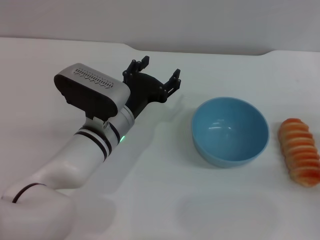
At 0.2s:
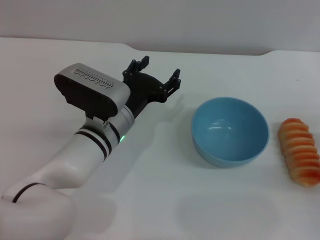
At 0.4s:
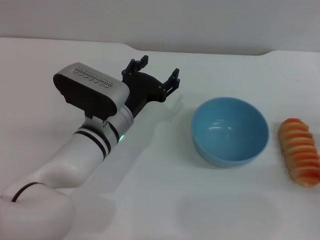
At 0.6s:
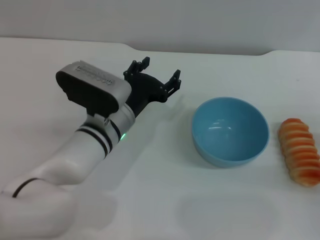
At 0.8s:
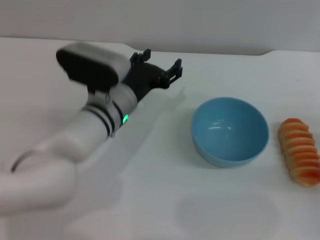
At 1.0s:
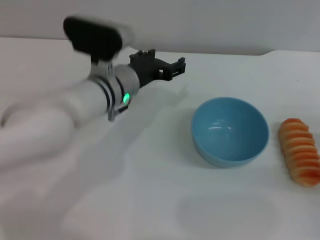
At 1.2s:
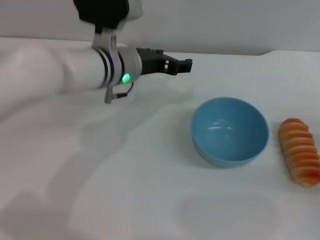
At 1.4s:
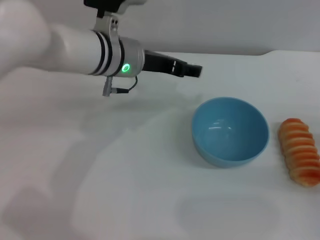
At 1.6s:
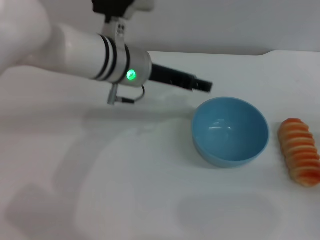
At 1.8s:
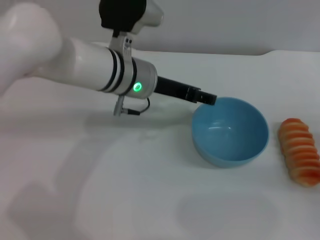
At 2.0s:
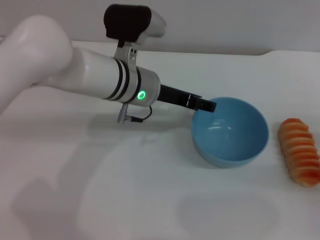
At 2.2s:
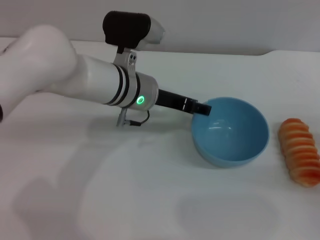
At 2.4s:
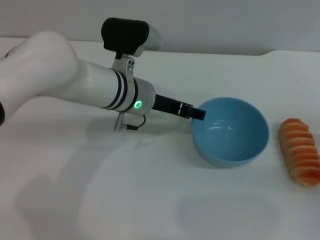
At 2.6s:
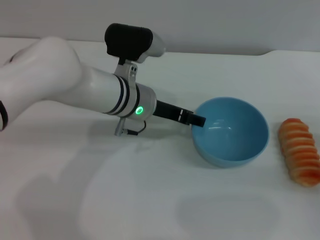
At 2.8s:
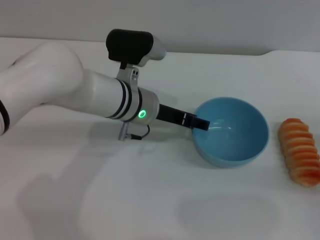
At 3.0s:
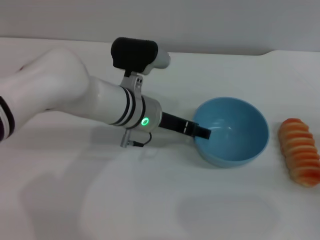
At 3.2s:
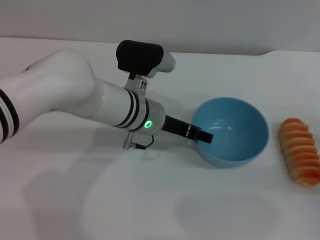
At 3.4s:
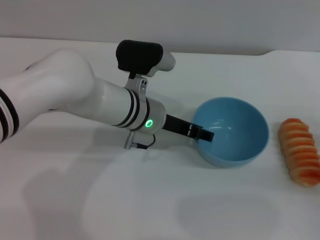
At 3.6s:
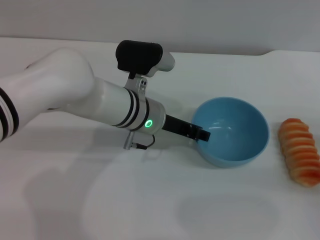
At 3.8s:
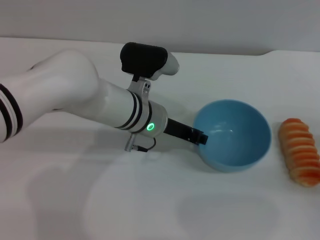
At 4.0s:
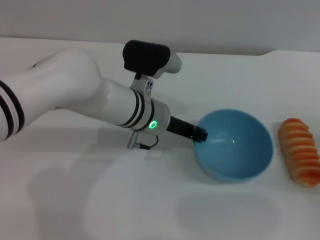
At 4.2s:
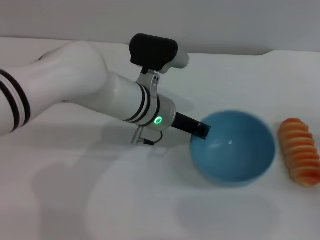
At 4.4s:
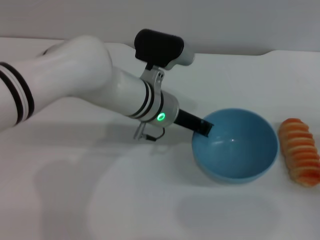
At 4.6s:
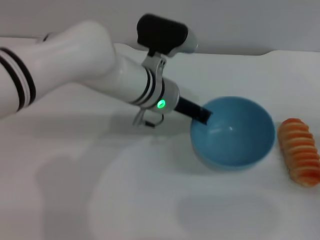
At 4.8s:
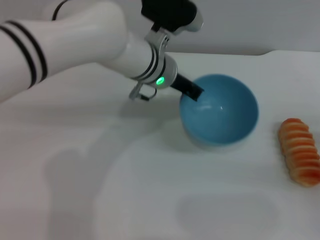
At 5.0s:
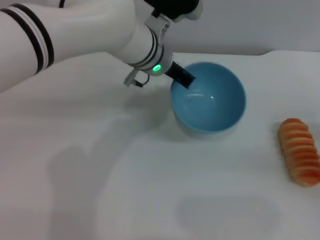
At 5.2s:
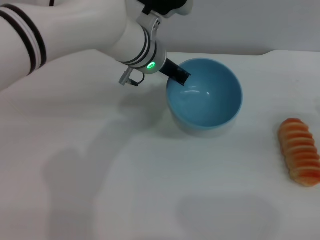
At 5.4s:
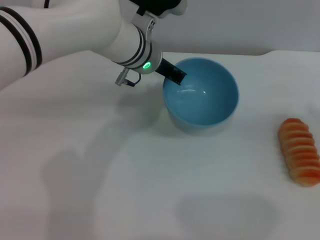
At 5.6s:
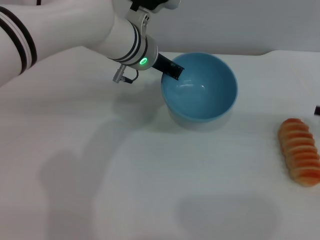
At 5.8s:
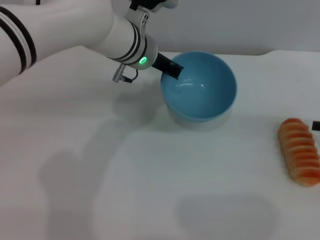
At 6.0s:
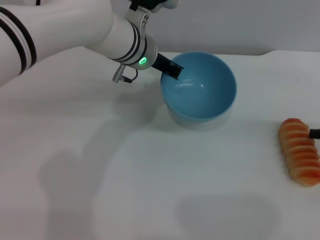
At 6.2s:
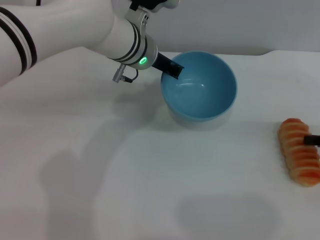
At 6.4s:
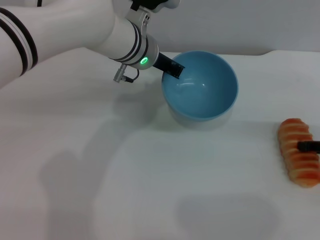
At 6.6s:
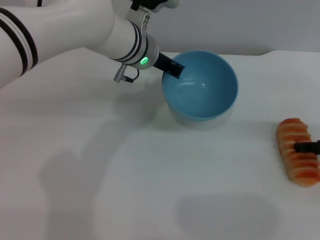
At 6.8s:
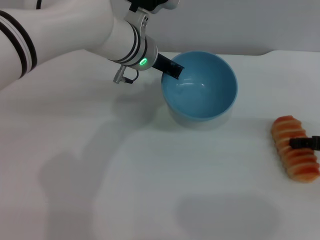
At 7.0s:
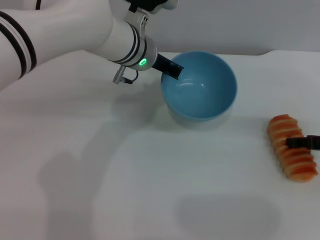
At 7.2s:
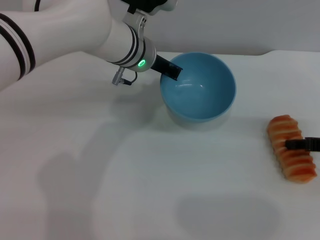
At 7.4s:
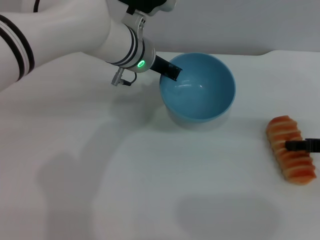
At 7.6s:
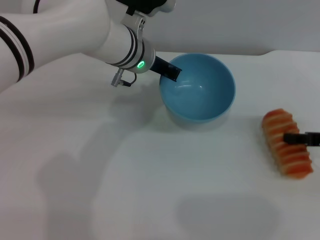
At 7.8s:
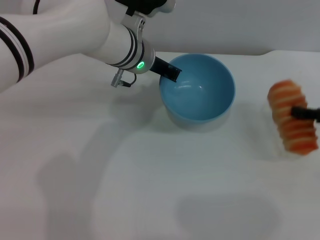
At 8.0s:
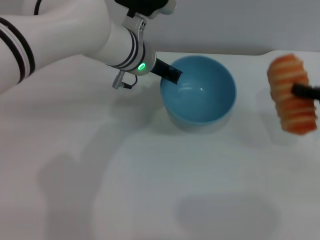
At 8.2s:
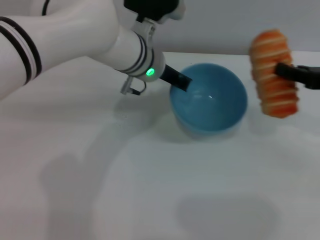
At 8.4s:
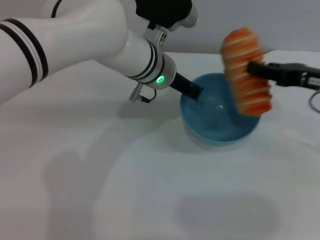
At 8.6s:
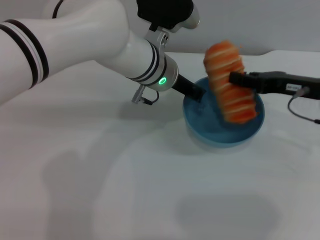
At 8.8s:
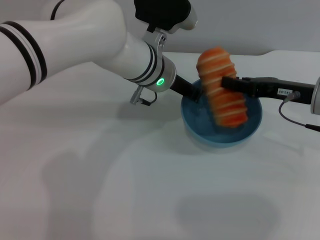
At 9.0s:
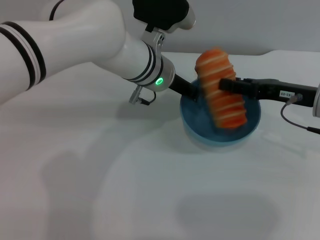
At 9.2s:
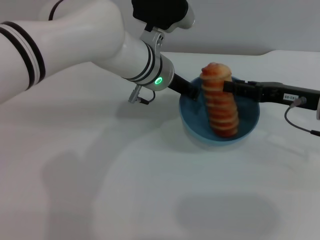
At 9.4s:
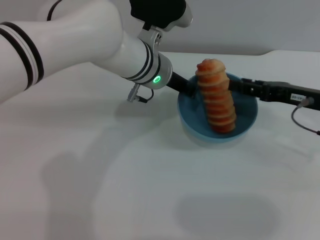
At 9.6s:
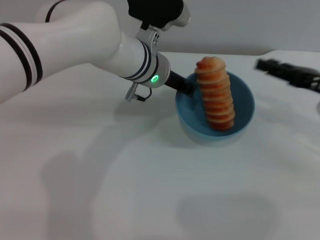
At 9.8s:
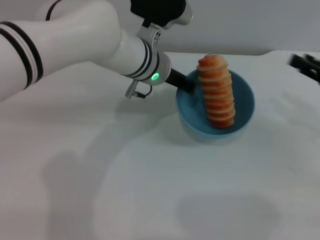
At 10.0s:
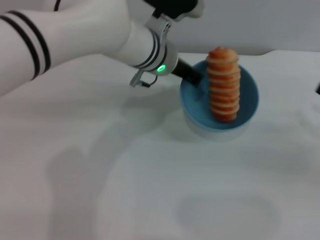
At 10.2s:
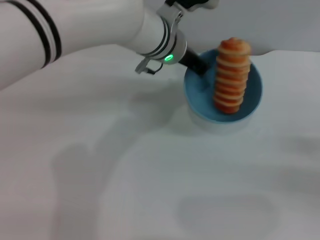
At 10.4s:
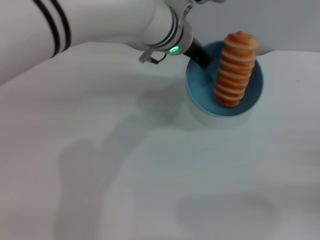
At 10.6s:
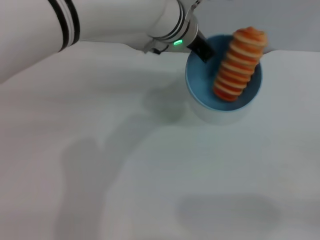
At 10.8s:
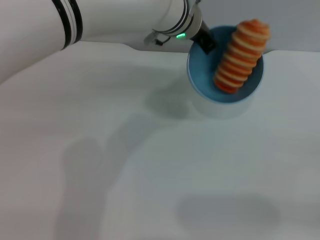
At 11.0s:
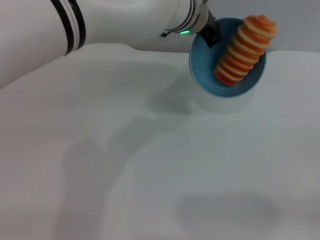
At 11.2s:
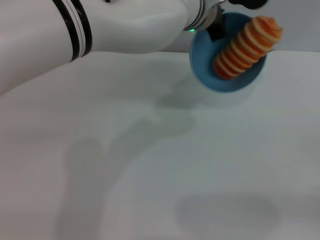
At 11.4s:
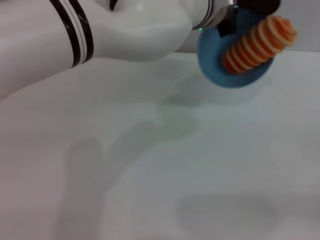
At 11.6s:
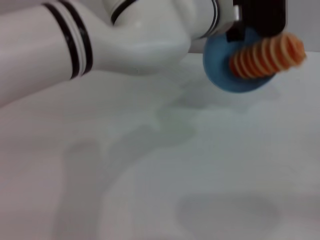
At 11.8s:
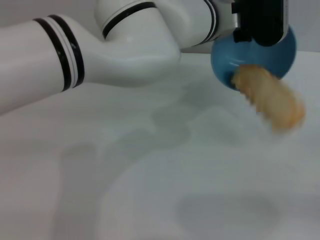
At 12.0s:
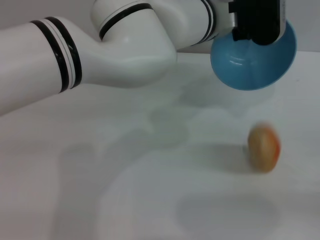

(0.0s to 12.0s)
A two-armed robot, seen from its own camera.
Task of the whole recording: put the bread into the blue bowl and pour it out repeatedly.
Step, 0.0s - 4.6s: Pick up the bowl with the left gripper.
Step, 4.8s - 7.8s: Pick up the bread with the right gripper.
Step, 8.0s - 9.4s: Place the bread into the bowl.
0.0s - 1.6s: The left gripper shifts roughly 15 cm upward and forward.
1.6s - 3.0s: The left gripper travels downward by approximately 5 cm.
3.0s - 4.4s: The left gripper closes up.
4.4s - 6.0s: The left gripper travels forward and upward by roughly 10 cm. Meanwhile the right gripper heads upward and forward, covering roughly 10 cm.
6.0s - 7.6s: The grippers move only a little.
7.6s - 9.0s: The right gripper goes roughly 10 cm to the left.
9.0s - 10.4s: The left gripper ends up some 5 cm from where it was. The right gripper moves to the right, backward and downward, about 20 cm, and opens its fingers.

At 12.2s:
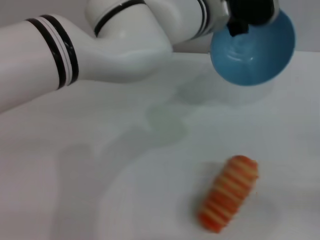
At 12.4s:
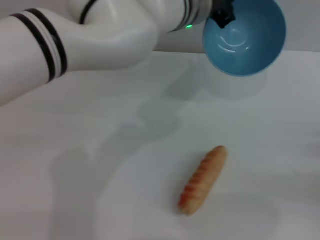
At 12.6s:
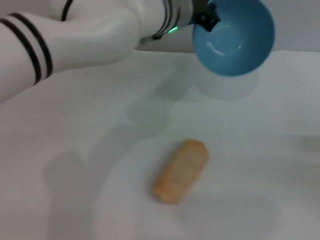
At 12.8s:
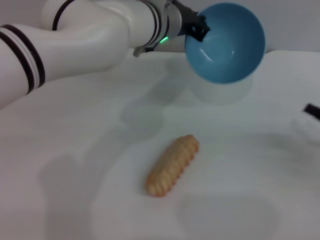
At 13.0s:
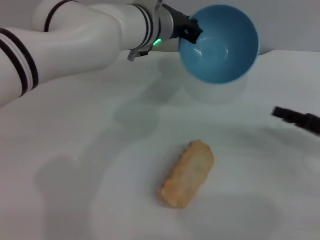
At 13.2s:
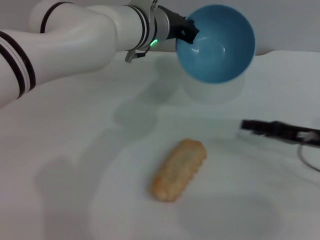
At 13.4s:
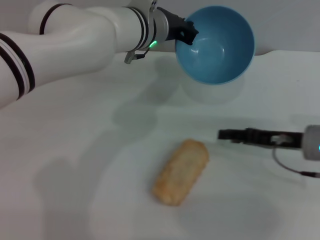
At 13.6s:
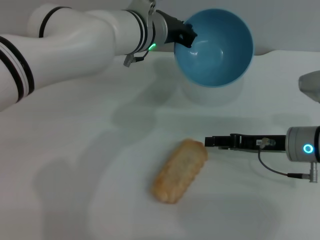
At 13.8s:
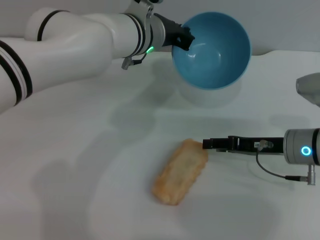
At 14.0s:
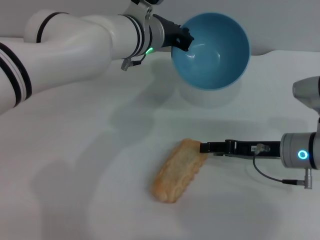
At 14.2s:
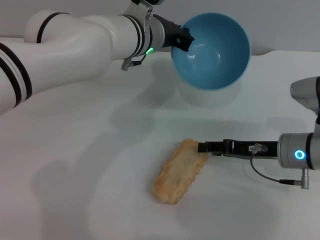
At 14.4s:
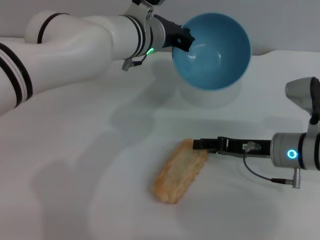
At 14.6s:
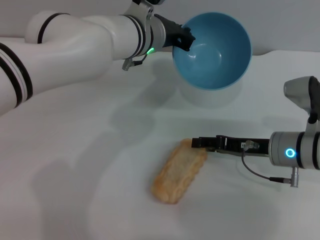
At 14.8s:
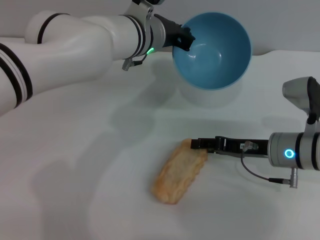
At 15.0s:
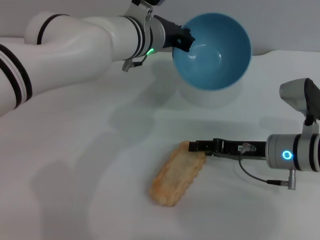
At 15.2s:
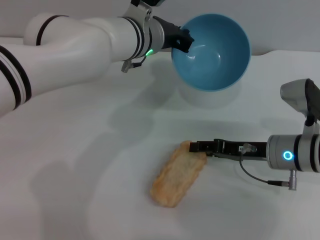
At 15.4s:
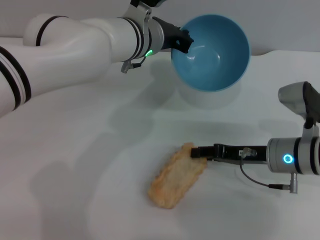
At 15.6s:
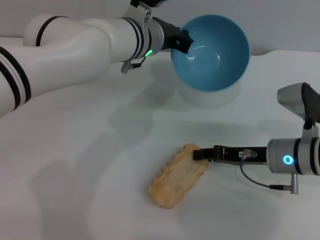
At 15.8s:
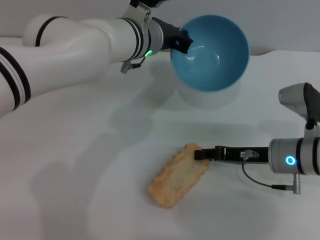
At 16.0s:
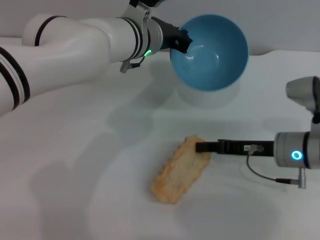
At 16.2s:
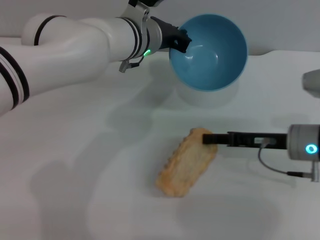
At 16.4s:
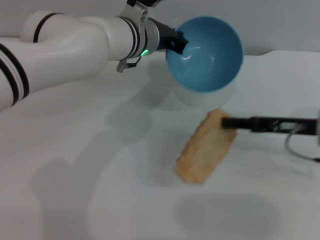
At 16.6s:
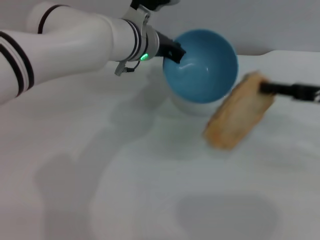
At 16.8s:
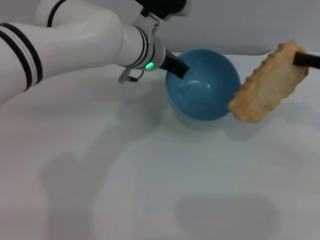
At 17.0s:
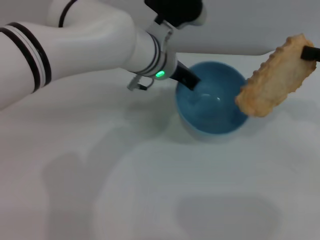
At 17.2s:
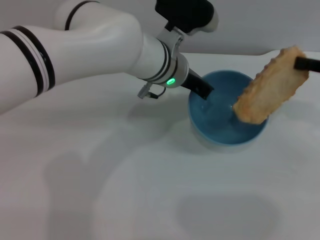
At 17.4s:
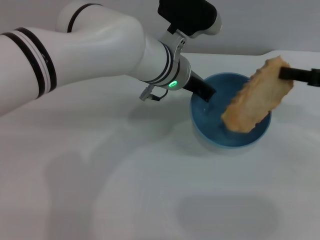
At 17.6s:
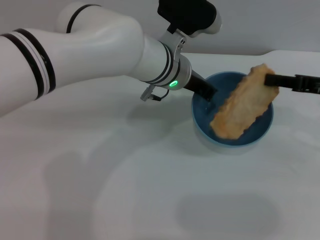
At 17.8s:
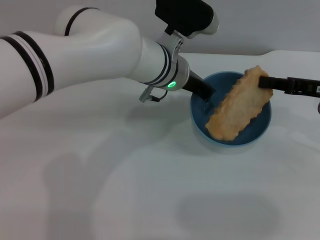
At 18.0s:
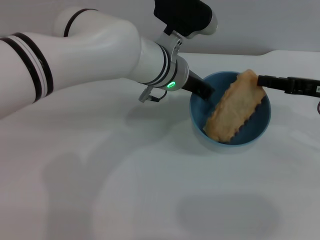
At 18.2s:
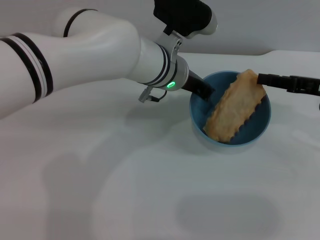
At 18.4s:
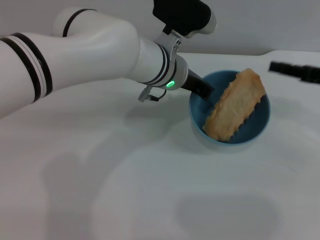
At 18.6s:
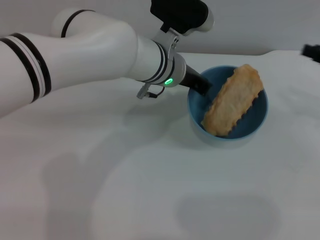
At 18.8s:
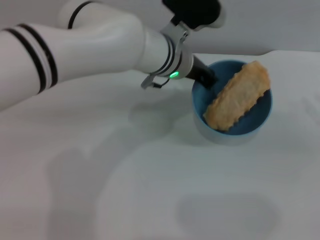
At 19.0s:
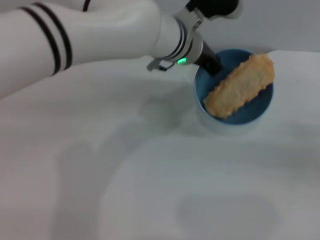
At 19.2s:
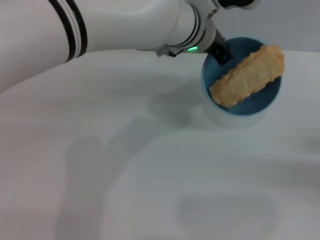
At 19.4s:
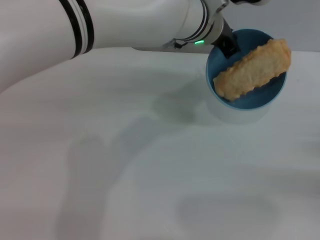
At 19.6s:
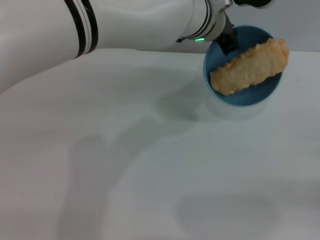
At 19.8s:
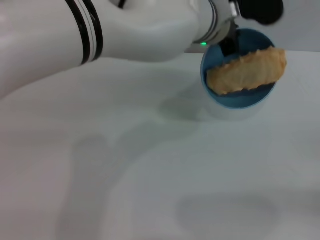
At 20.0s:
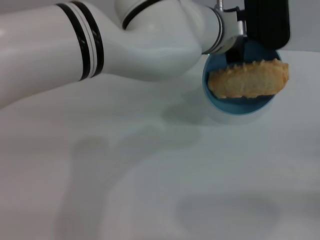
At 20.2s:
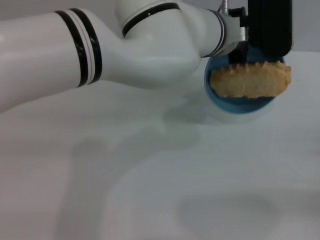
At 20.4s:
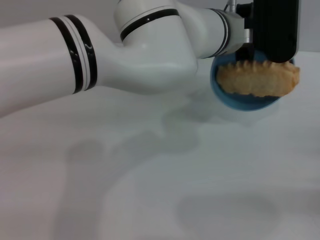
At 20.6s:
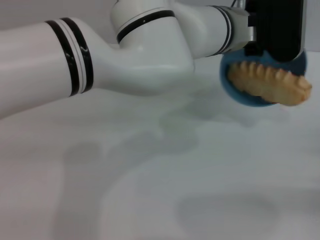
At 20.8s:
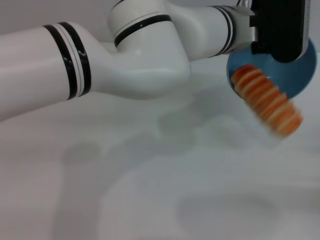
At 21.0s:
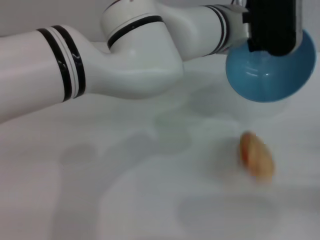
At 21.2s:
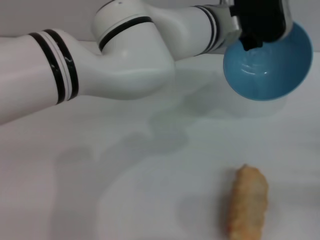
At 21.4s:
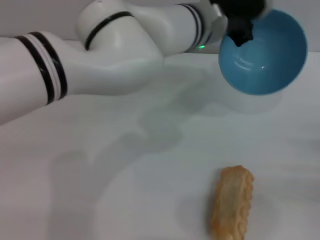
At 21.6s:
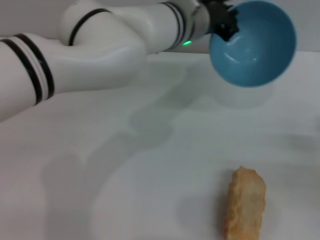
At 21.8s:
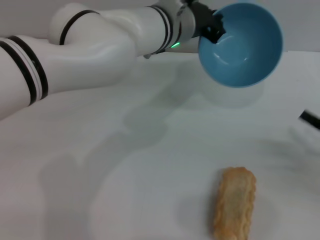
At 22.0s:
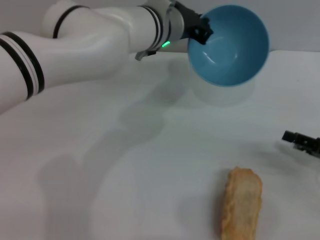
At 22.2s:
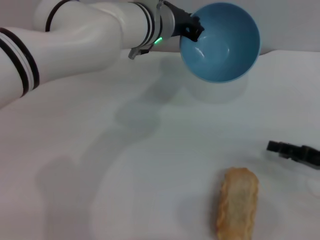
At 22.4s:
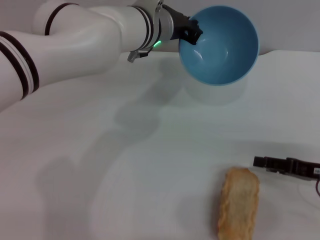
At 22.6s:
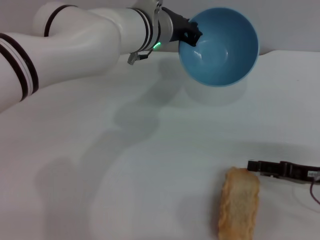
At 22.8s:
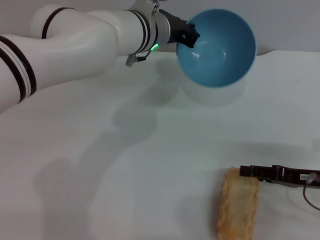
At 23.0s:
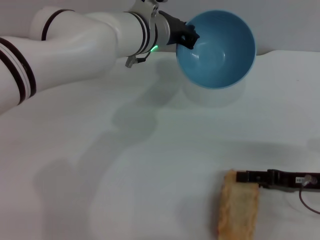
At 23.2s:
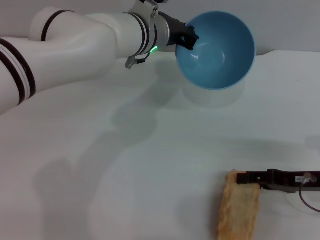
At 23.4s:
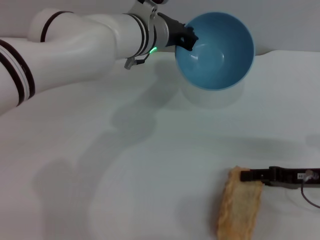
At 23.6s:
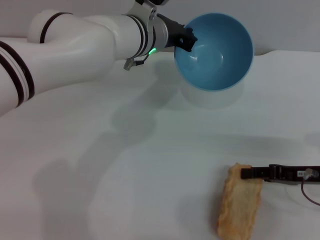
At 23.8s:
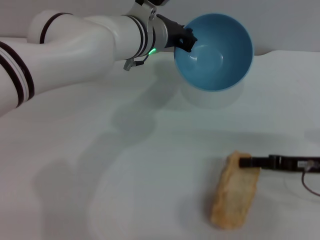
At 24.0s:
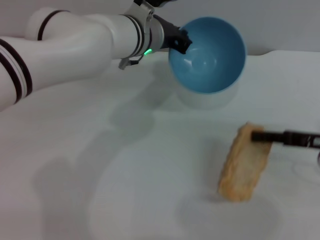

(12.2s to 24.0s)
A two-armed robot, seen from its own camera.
Task of the whole recording: put the bread into the blue bowl and pour it out repeatedly.
Step, 12.4s - 16.4s: Pick up the bread with the right gripper.
Step, 16.6s - 18.4s: Place the bread into the bowl.
Step, 18.6s - 21.2s: Pour the bread out of the bowl.
12.2s - 13.6s: The left gripper moves to the left, about 5 cm, while the right gripper shifts about 20 cm to the left and forward.
13.6s - 15.2s: The grippers move only a little.
15.2s - 16.6s: The right gripper moves upward and to the right, approximately 15 cm, and closes its fingers.
16.6s - 18.2s: The left gripper shifts by about 5 cm.
18.2s - 19.6s: The left gripper shifts approximately 5 cm upward, while the right gripper travels backward, to the right and downward by roughly 20 cm, and opens.
21.0s - 22.6s: The right gripper heads to the left and forward, covering approximately 10 cm; the left gripper shifts about 10 cm to the left.
22.6s - 24.0s: The right gripper changes place by about 5 cm, and closes its fingers.
